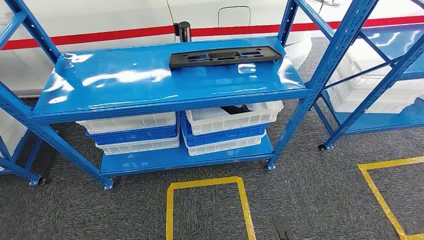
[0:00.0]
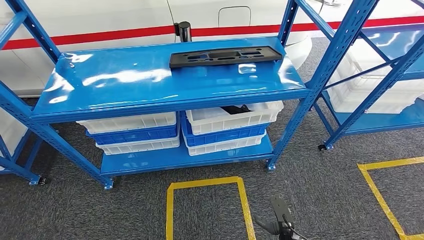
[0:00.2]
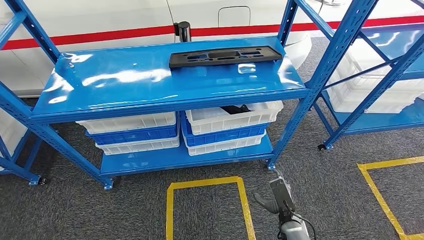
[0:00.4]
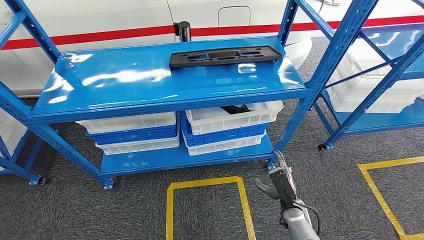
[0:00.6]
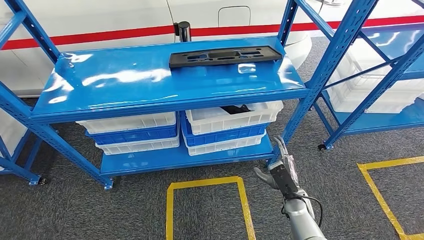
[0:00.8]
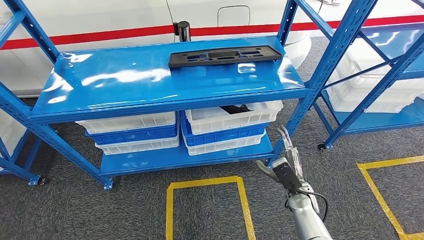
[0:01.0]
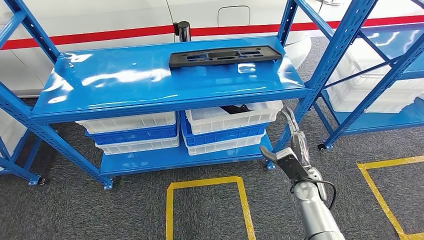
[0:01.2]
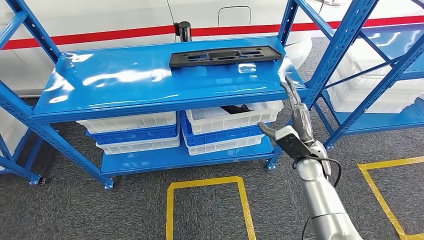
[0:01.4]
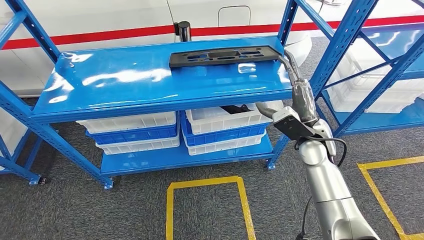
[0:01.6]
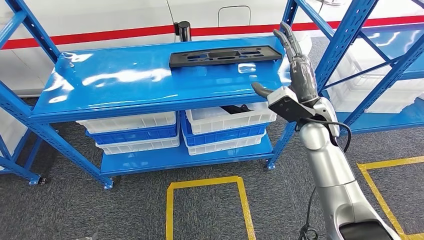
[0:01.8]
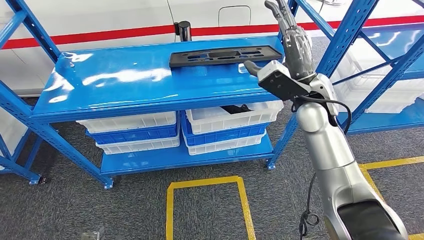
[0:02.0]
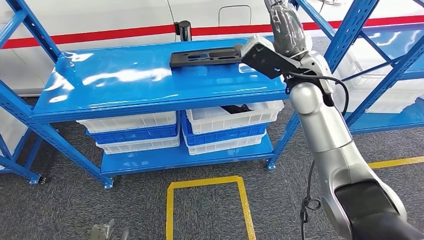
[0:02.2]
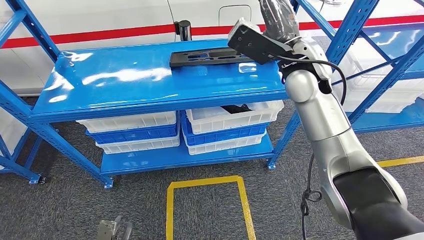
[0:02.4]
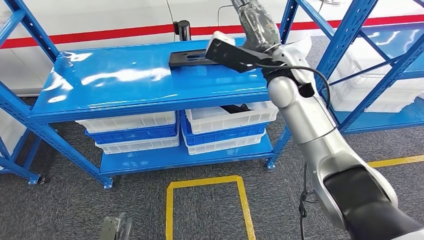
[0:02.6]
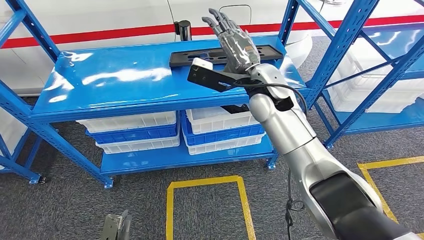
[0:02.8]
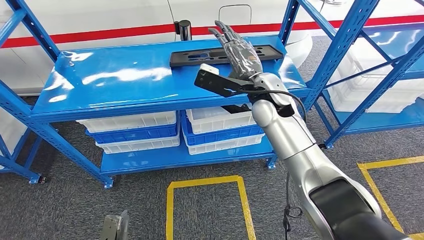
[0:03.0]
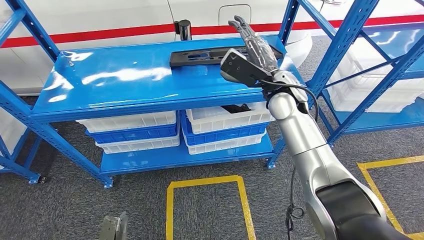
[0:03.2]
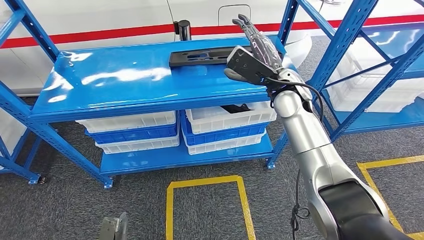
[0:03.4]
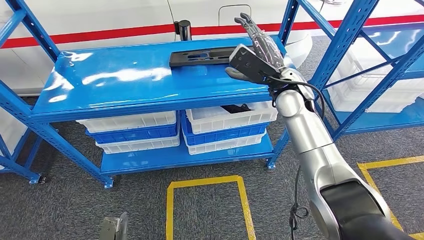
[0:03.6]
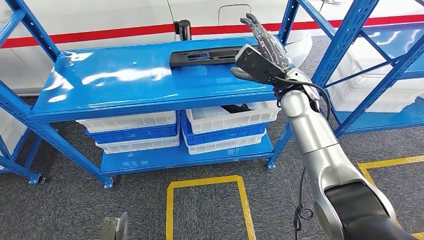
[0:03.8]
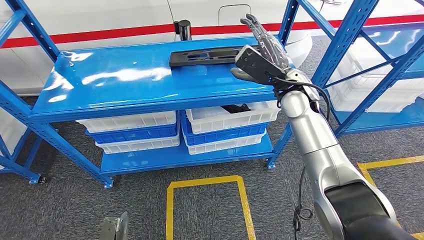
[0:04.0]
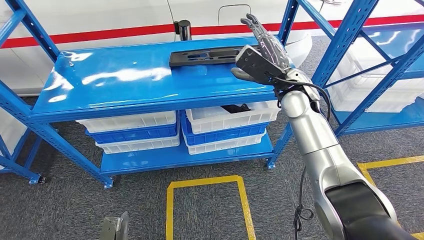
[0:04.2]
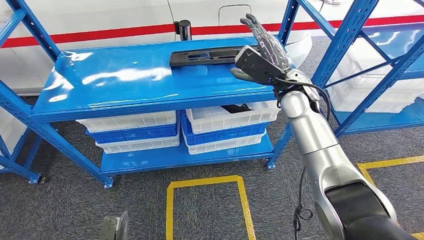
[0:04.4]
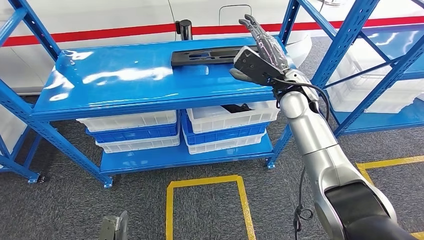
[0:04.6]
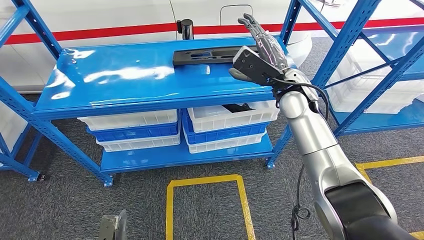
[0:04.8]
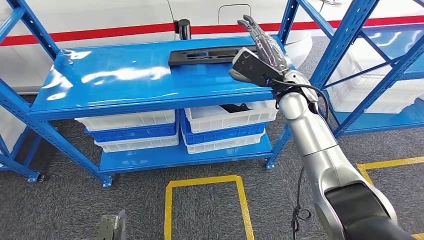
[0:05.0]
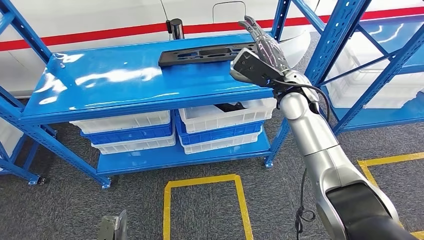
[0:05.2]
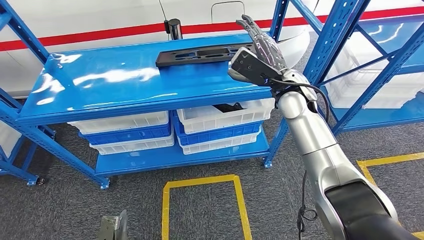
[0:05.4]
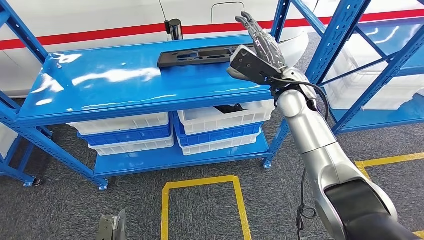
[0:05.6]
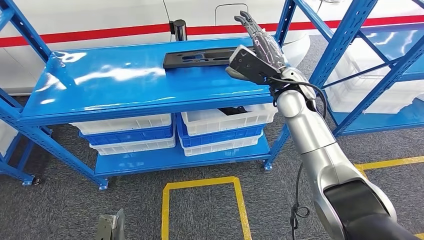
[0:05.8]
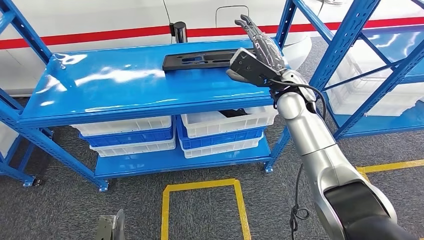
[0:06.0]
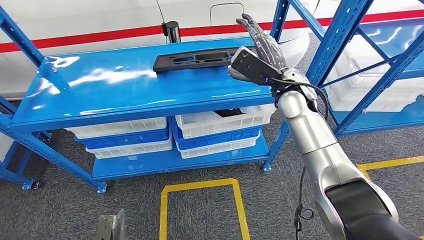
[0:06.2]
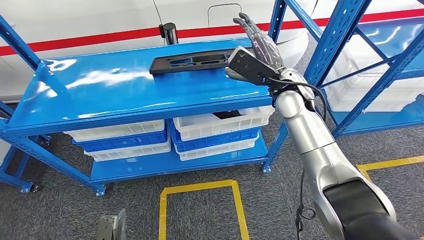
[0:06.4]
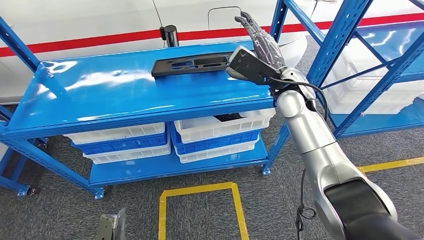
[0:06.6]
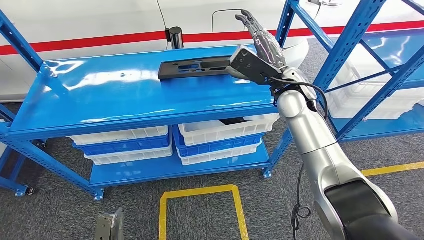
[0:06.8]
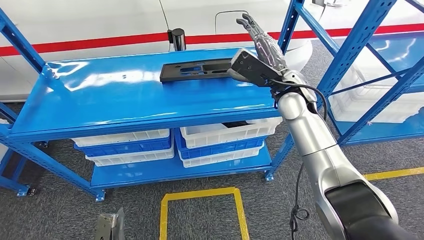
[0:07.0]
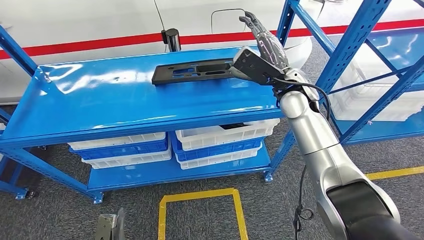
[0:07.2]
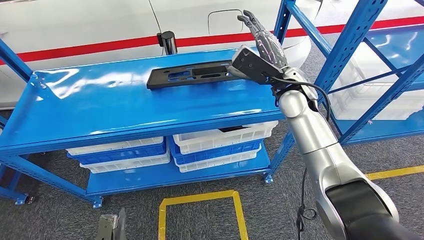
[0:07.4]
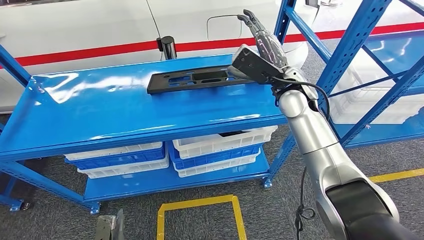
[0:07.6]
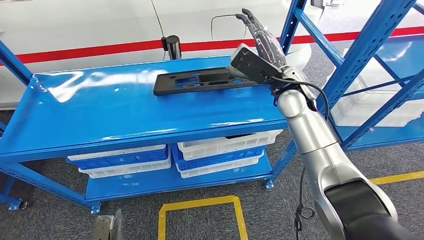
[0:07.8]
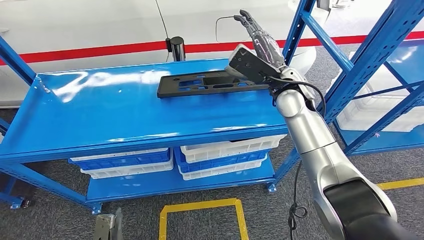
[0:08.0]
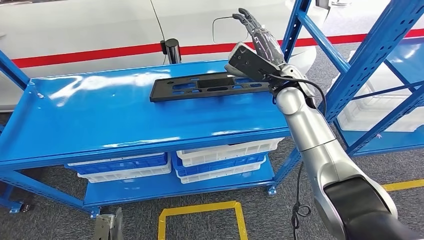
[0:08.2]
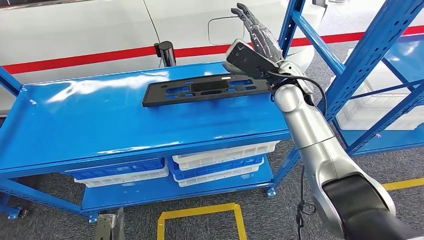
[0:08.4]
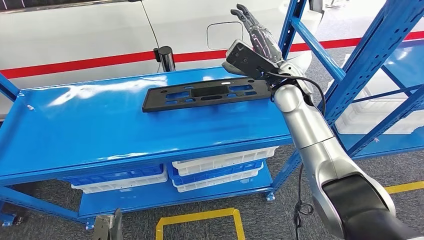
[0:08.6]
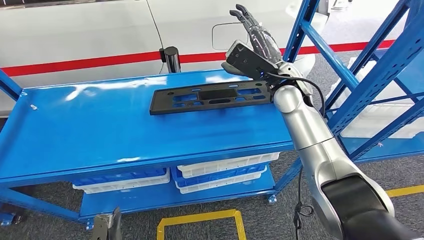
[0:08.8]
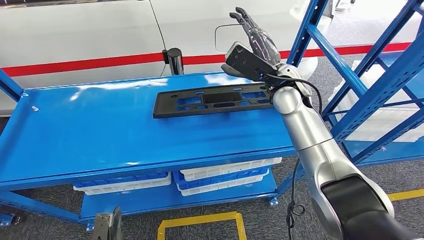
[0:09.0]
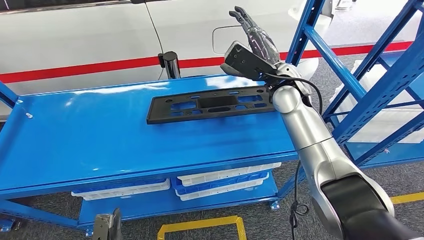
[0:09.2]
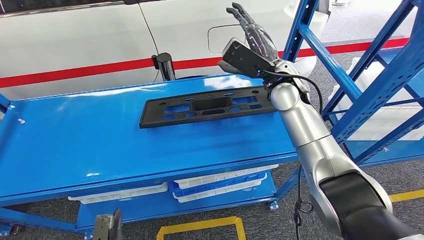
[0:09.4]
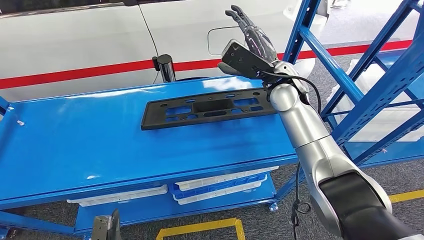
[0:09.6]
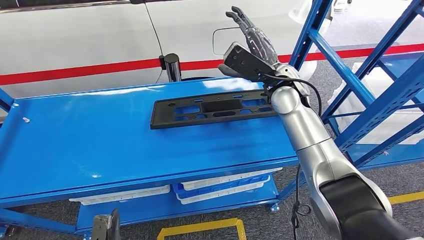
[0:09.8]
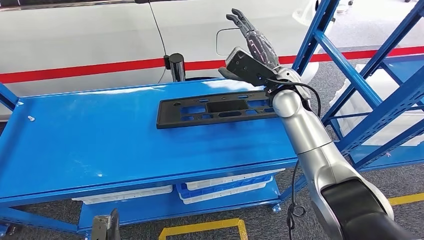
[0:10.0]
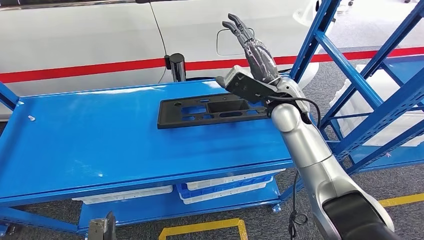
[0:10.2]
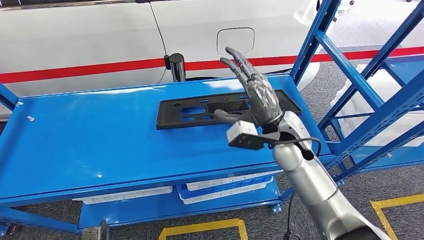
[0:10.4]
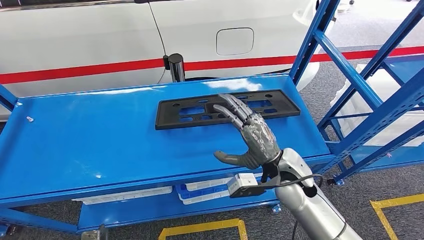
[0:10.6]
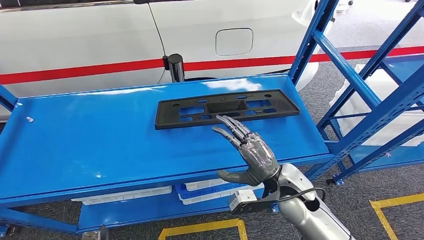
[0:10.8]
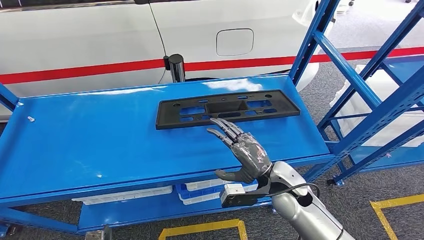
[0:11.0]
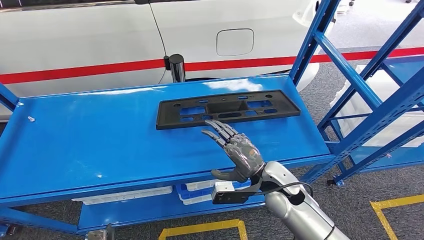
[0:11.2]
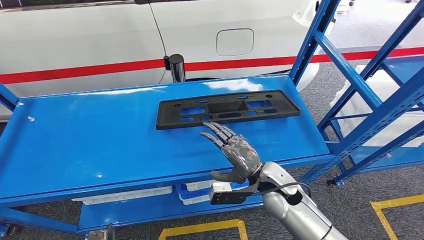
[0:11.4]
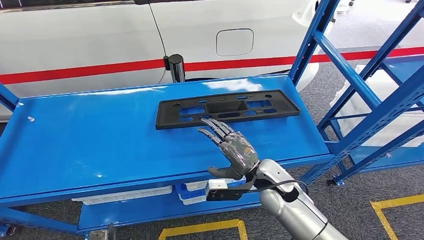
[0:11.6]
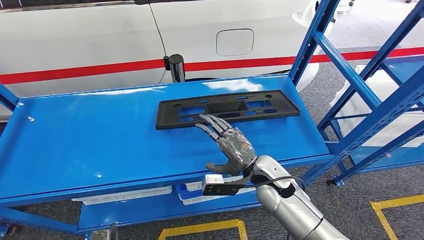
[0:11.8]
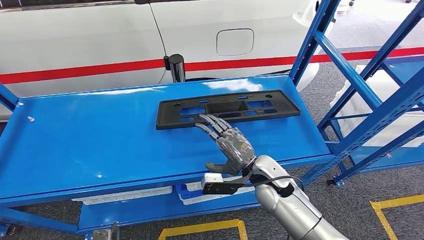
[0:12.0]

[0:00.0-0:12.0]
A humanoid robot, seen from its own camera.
0:01.6 to 0:03.0: The right hand heads to the left, upward and forward, covering approximately 15 cm; the left hand is displaced forward and to the right by about 10 cm.
0:03.0 to 0:04.4: The right hand heads to the right, covering roughly 5 cm.
0:10.4 to 0:12.0: The right hand travels downward by some 10 cm.

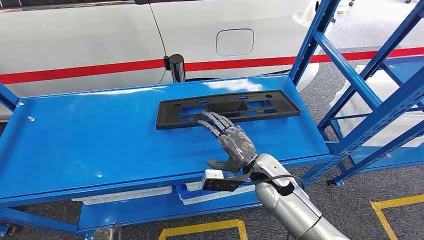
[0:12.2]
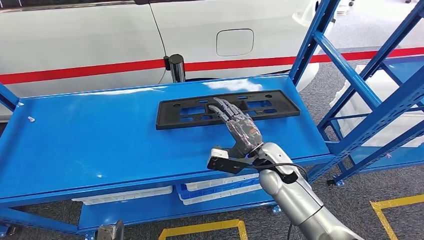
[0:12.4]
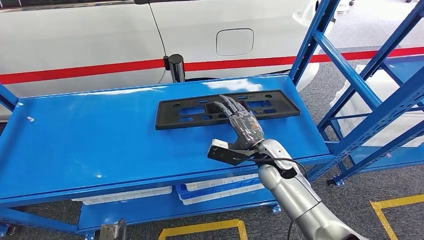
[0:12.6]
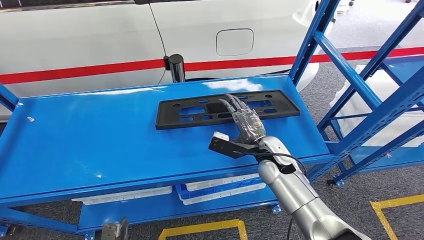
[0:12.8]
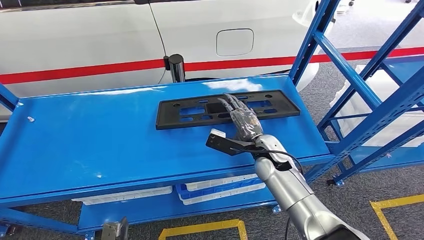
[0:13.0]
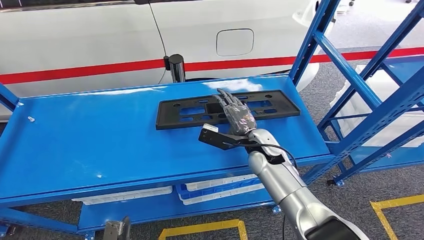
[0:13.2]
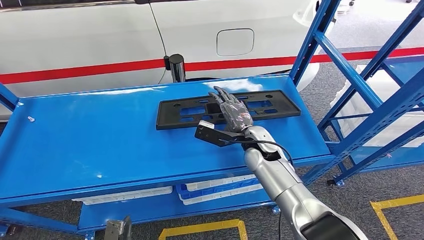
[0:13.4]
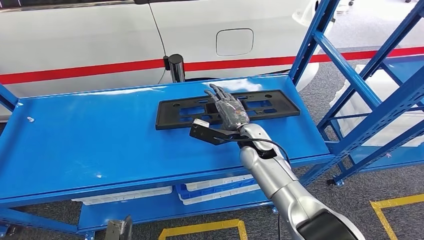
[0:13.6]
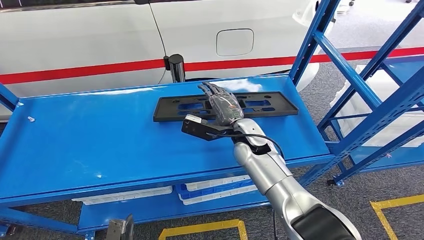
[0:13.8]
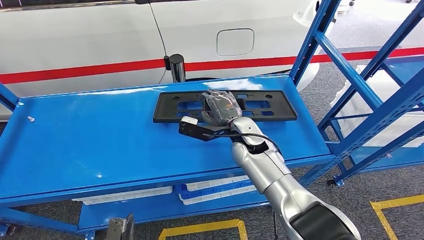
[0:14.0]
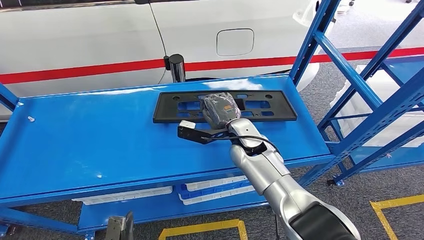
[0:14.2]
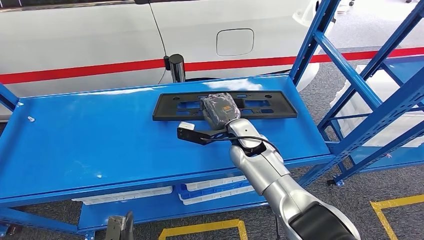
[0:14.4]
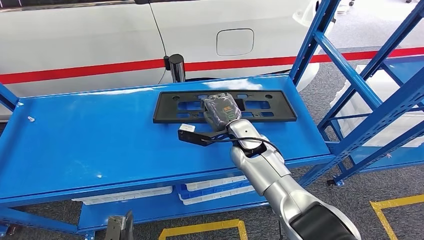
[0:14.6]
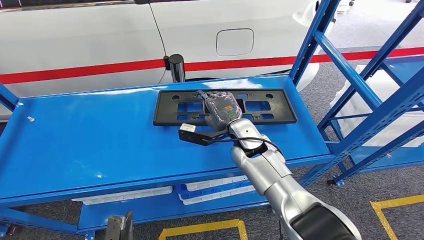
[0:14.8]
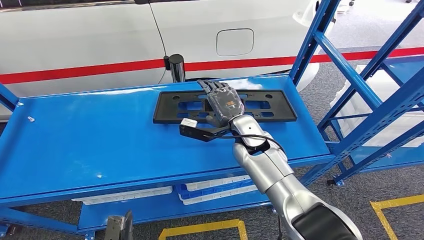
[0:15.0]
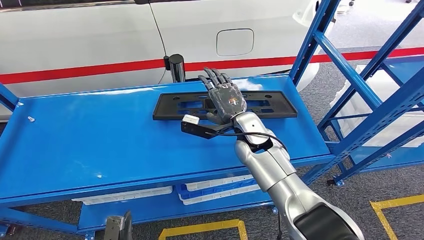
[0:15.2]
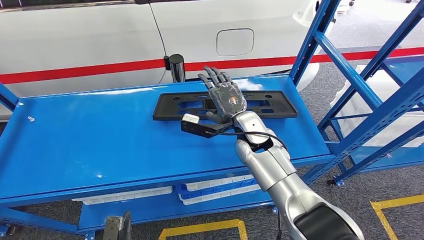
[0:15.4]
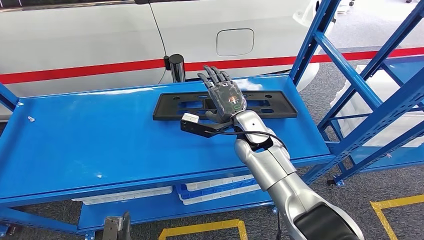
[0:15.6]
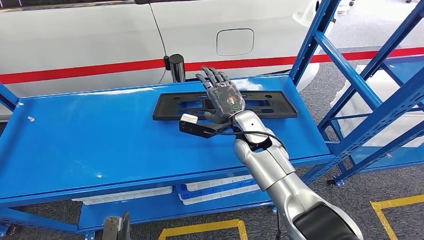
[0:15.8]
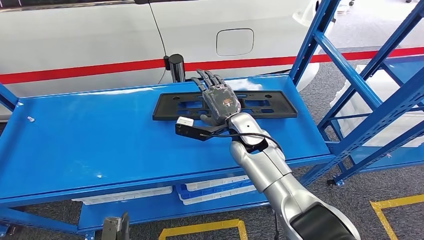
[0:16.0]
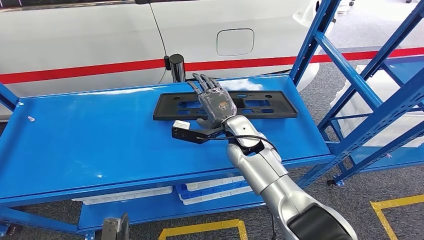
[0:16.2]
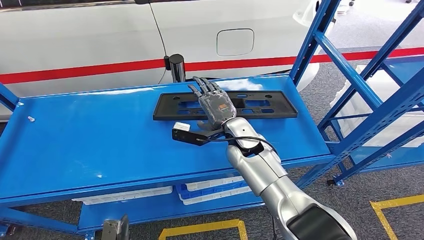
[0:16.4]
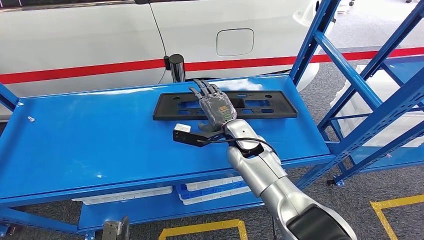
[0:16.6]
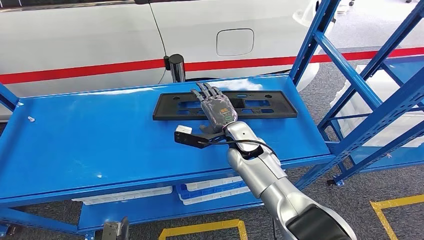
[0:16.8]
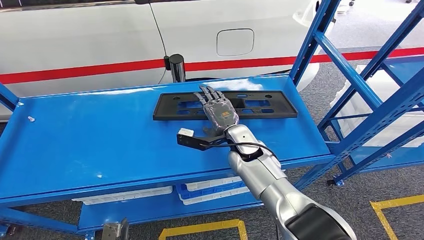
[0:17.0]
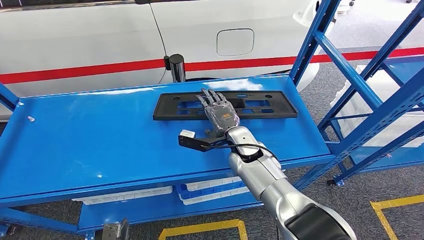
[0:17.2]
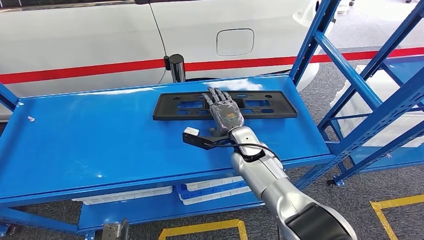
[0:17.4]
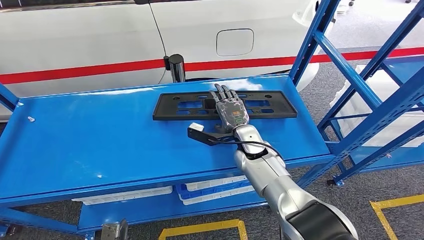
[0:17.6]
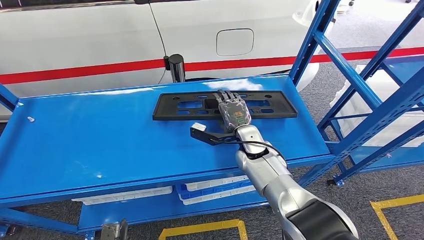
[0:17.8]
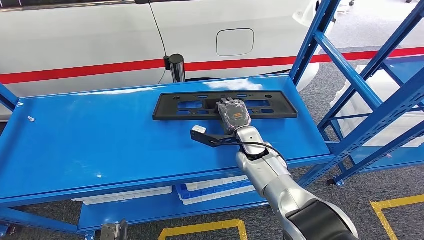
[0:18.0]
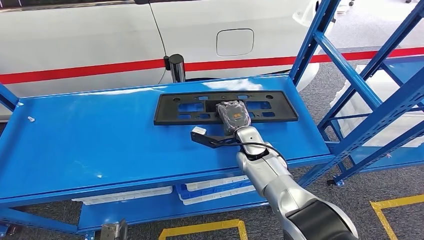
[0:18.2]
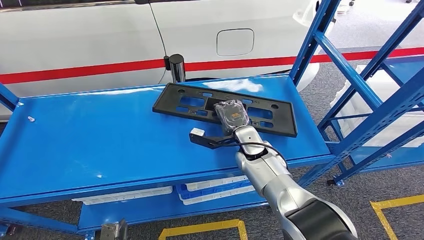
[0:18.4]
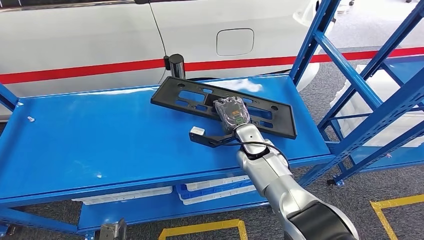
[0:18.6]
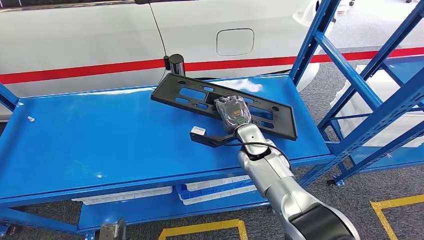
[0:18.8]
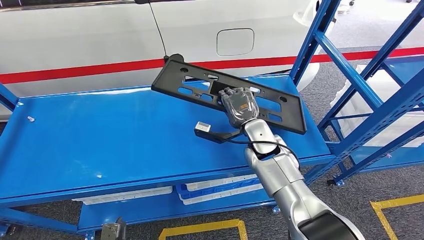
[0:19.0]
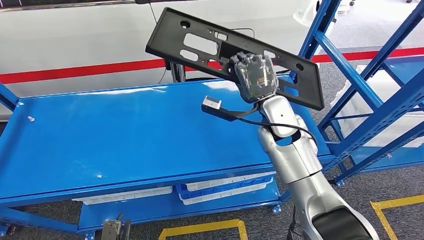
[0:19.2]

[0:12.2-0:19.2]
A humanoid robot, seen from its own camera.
Step, 0:12.2 to 0:19.0: Pick up the large material from the shelf.
0:12.2 to 0:13.6: The right hand heads forward, covering approximately 10 cm.
0:13.6 to 0:16.4: The hands move only a little.
0:16.4 to 0:17.8: The right hand travels downward by some 5 cm.
